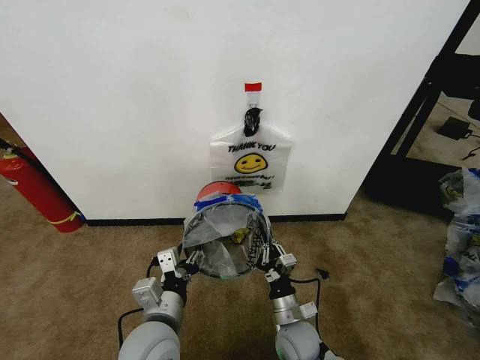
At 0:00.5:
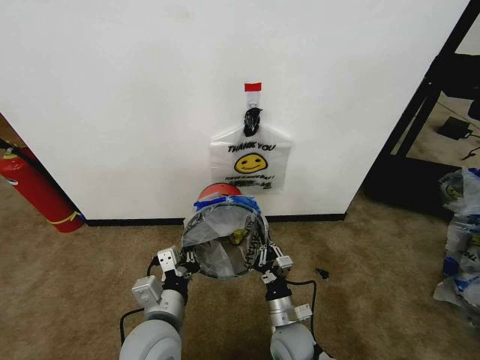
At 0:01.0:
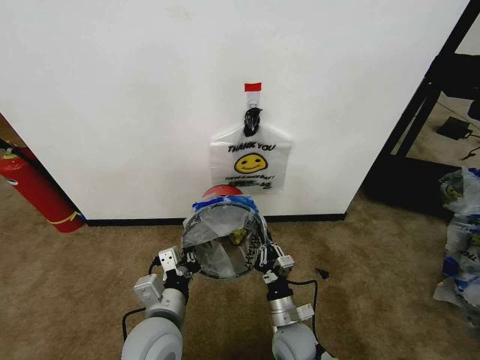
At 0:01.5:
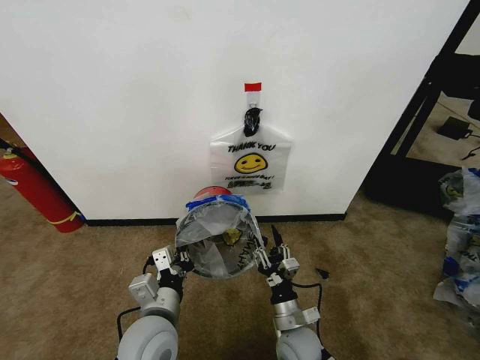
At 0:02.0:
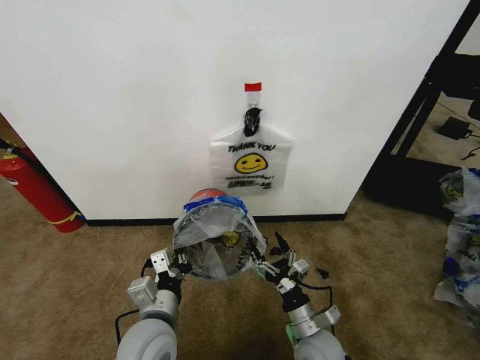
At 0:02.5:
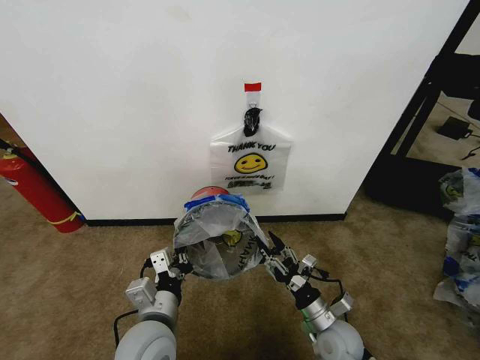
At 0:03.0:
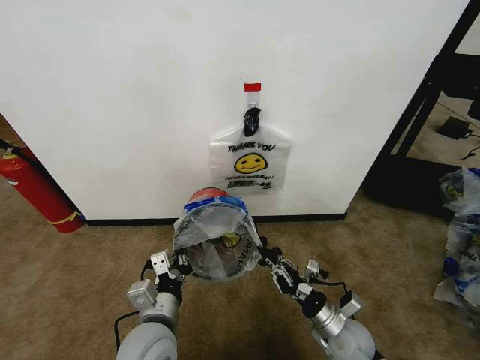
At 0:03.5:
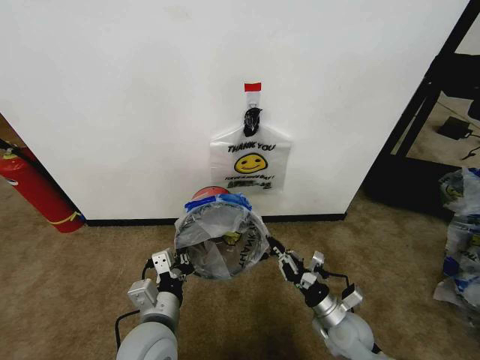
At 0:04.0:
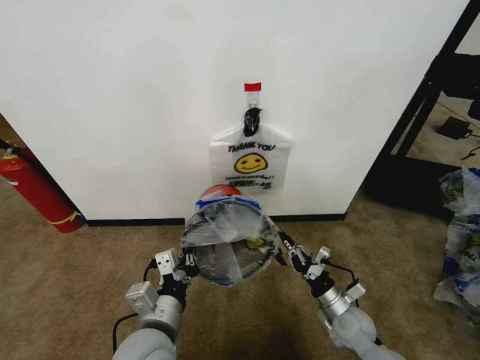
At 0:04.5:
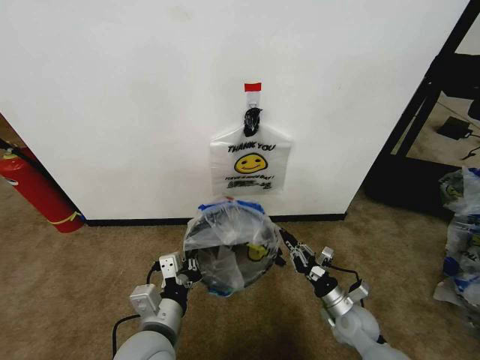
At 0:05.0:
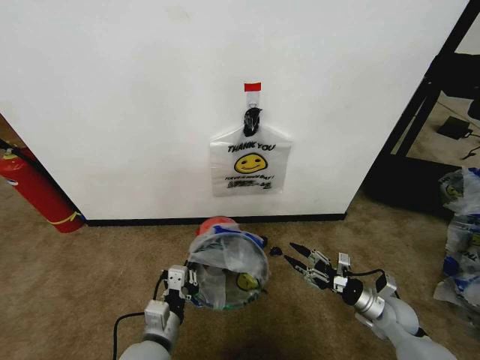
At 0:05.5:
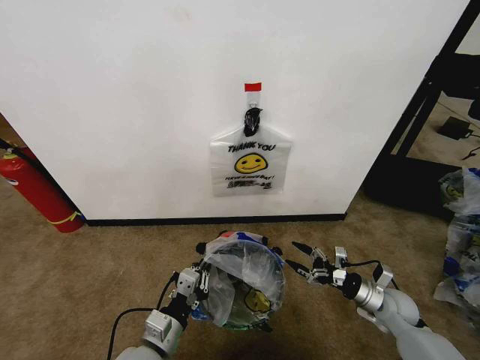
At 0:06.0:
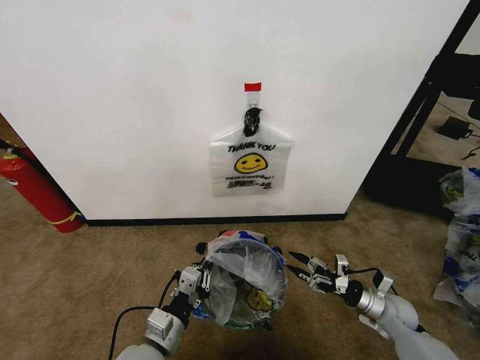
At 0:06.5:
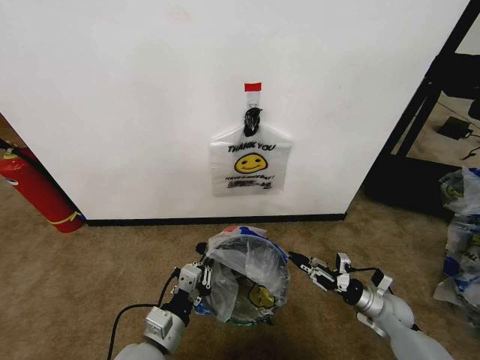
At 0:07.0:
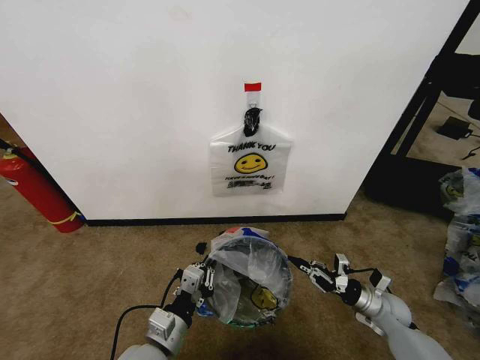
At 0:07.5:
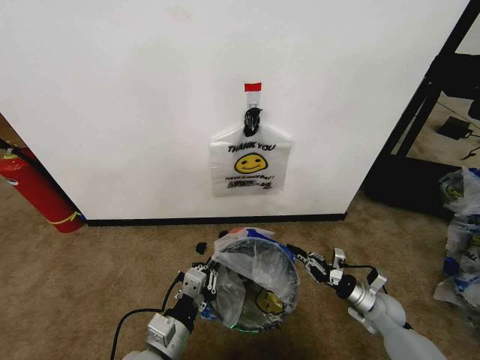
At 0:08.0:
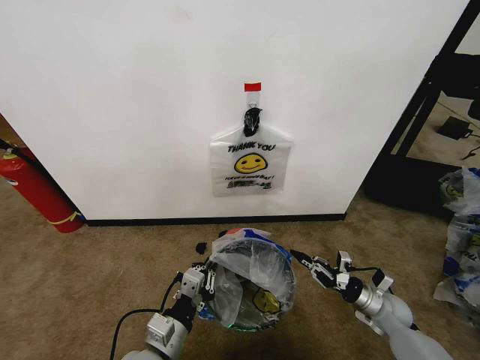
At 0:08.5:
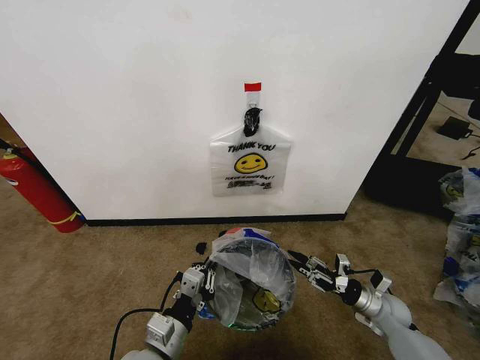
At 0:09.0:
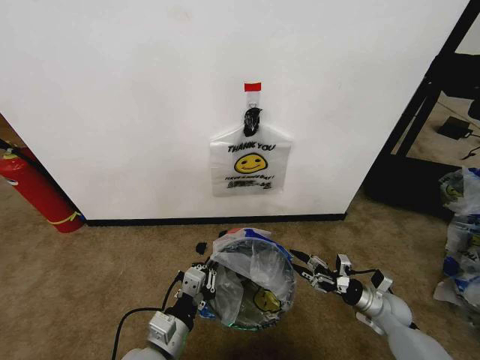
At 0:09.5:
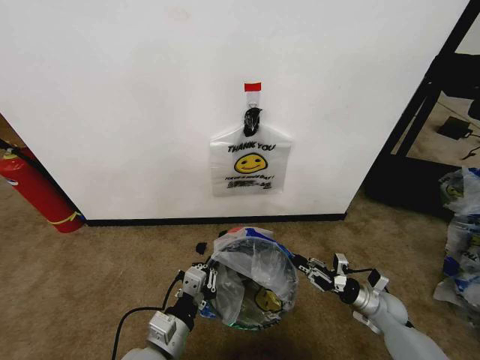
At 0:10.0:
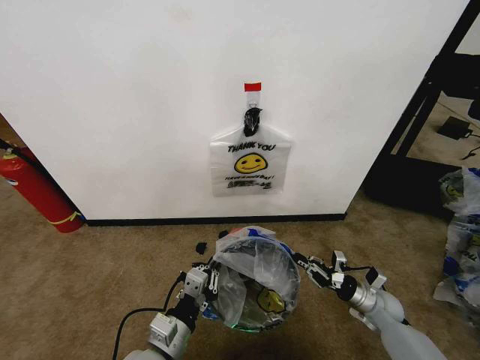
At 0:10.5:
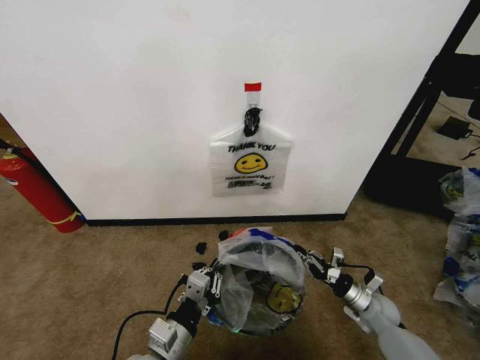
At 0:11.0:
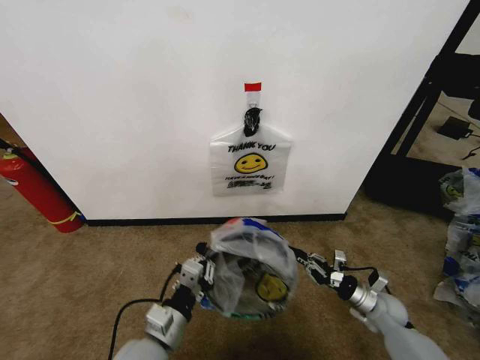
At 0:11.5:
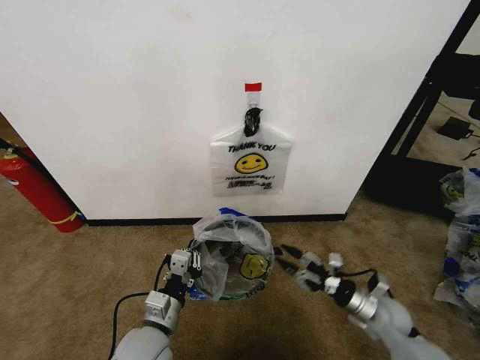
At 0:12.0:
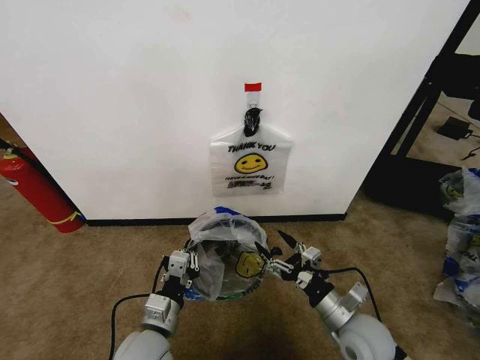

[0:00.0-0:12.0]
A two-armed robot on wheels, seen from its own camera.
Task of the whole recording: Pick up the garbage bag from the wall and place it over the trash bin.
0:00.0 to 0:02.0: The right gripper shifts by approximately 5 cm, and opens up. Meanwhile the left gripper closes its fingers.
0:02.0 to 0:04.0: The right gripper shifts some 10 cm to the right and forward, and closes its fingers.
0:04.0 to 0:06.0: The right gripper heads to the right, covering some 10 cm, and opens its fingers, while the left gripper heads downward, covering roughly 10 cm.
0:06.0 to 0:08.0: The right gripper closes its fingers.
0:08.0 to 0:10.0: The right gripper opens, then closes once more.
0:10.0 to 0:12.0: The right gripper travels to the left, upward and backward by some 20 cm, and opens its fingers.

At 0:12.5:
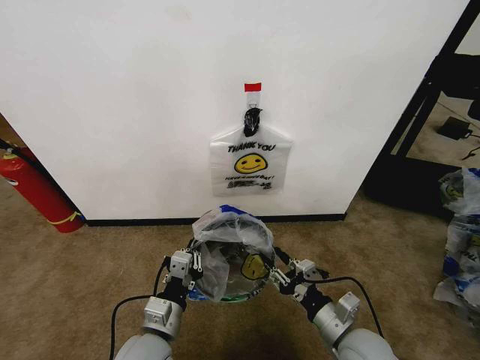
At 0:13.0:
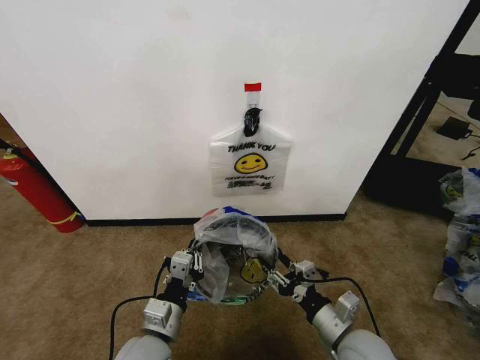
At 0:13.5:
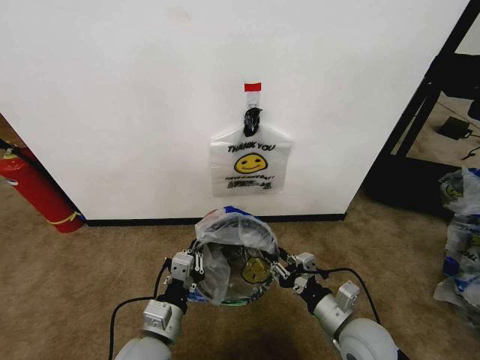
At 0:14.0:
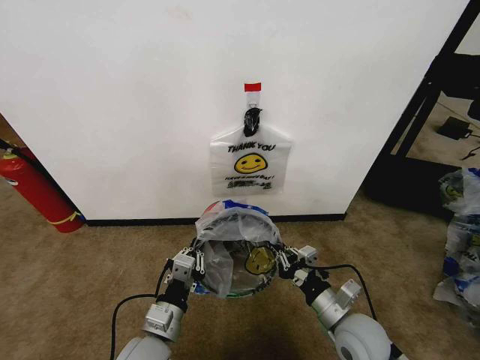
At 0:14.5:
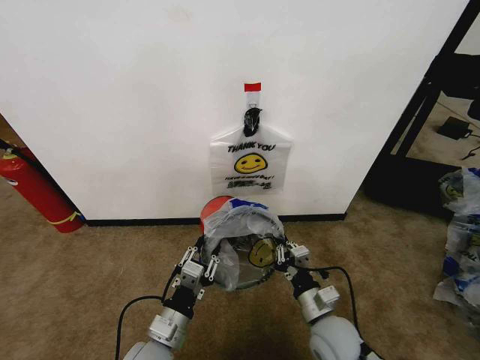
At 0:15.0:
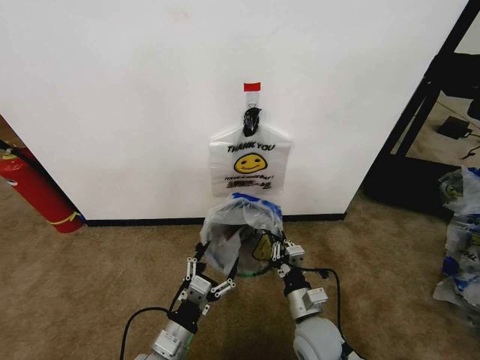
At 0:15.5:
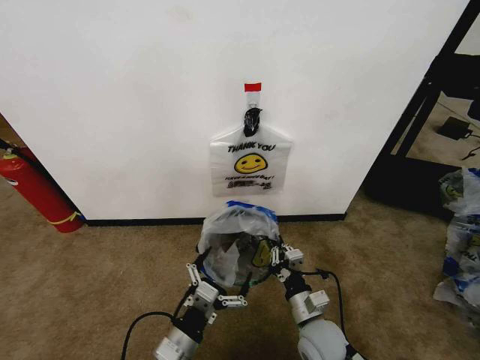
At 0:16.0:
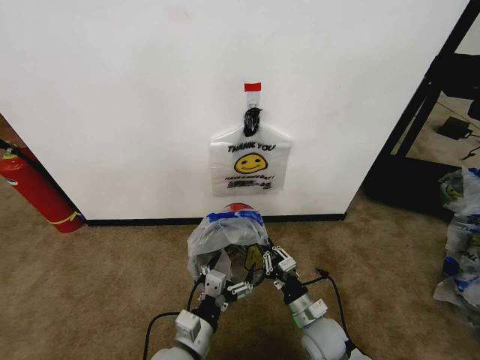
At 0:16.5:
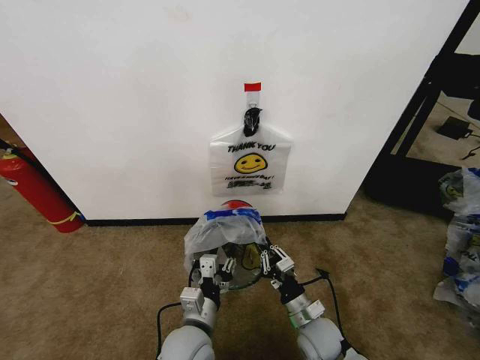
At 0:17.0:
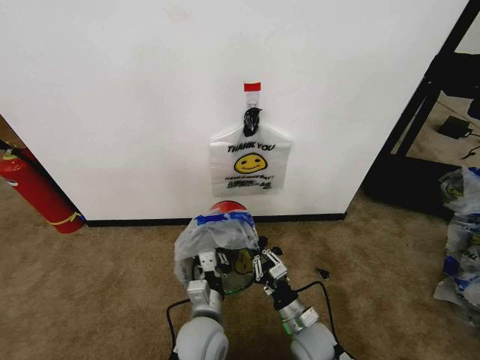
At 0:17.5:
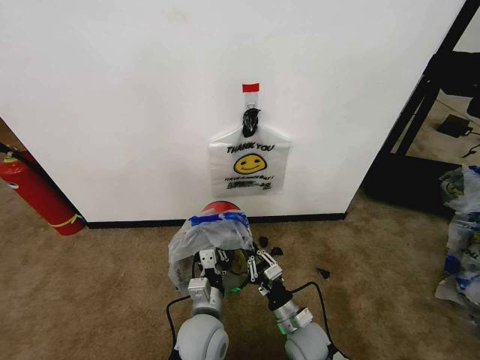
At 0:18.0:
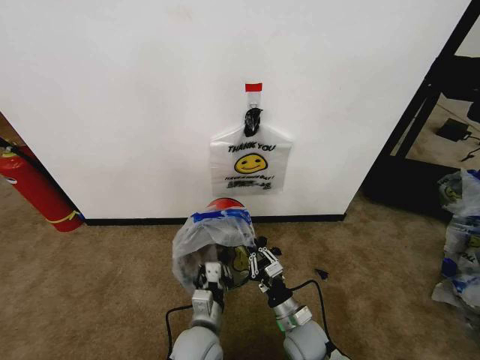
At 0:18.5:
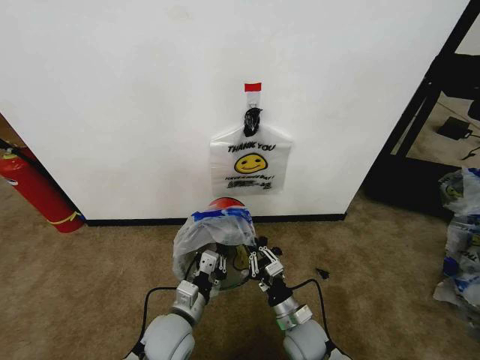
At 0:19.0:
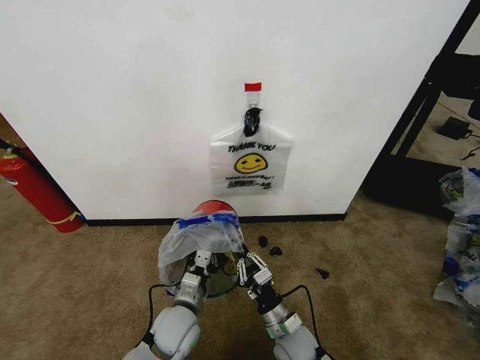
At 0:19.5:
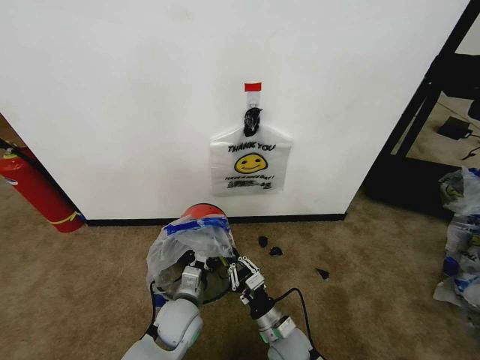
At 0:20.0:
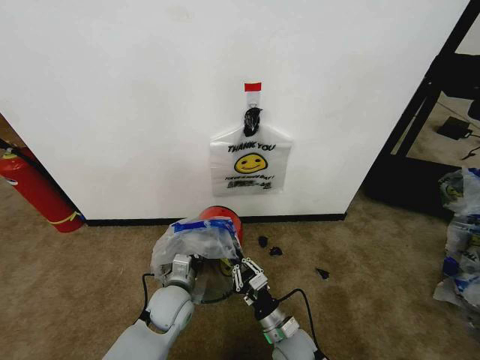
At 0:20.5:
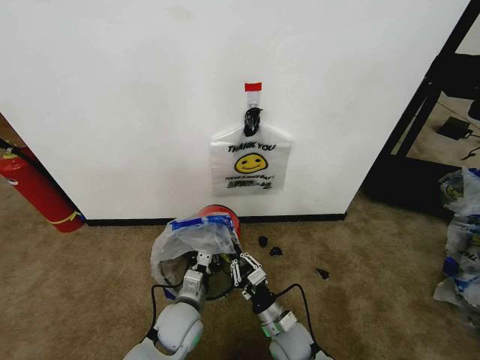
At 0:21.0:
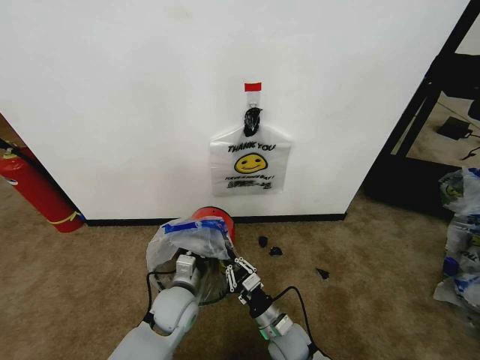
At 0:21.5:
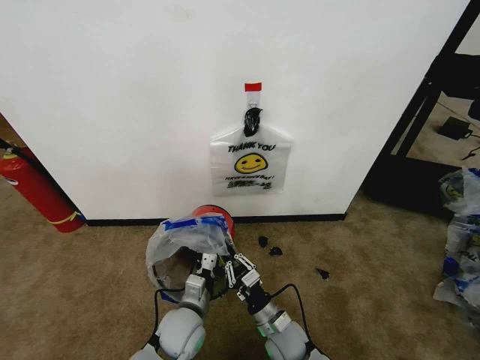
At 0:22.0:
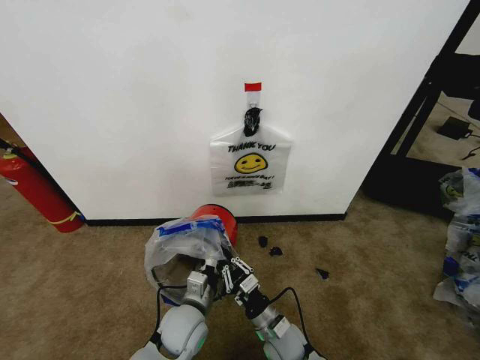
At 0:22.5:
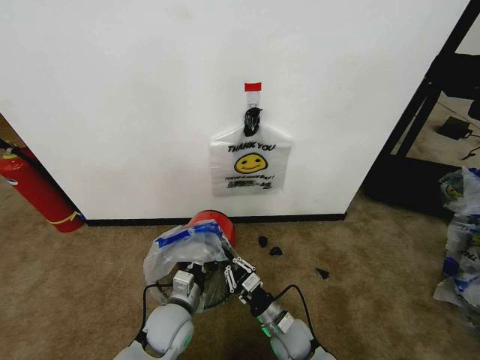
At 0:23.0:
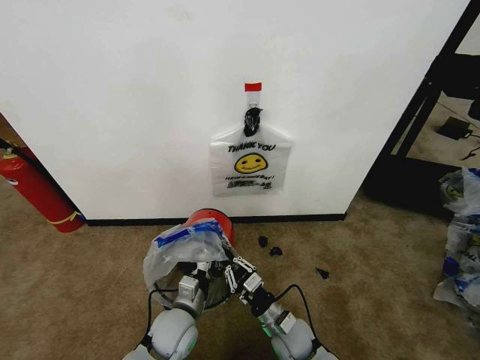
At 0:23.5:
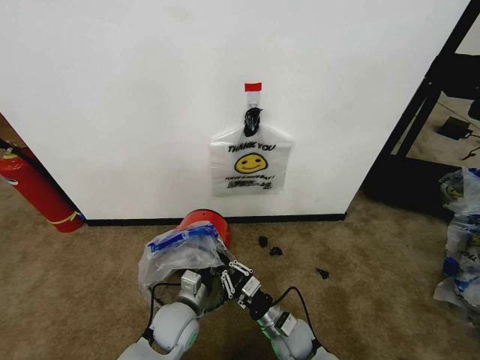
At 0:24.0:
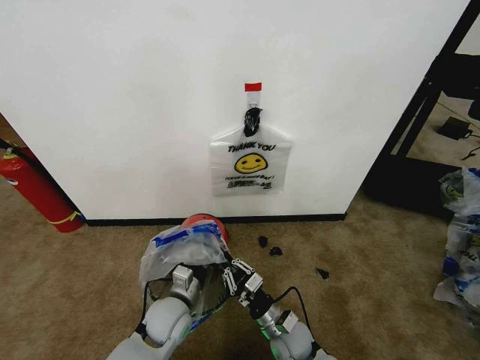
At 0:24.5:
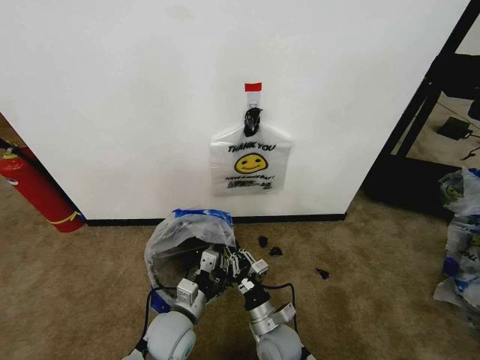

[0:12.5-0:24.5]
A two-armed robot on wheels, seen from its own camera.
Task of the whole recording: Pick up the garbage bag from the wall and place it over the trash bin.
0:12.5 to 0:14.5: The right gripper changes place by about 5 cm, and closes.
0:14.5 to 0:16.5: The right gripper heads downward, covering some 5 cm. Meanwhile the left gripper shifts about 5 cm to the right, and opens, then closes again.
0:16.5 to 0:18.5: The left gripper ends up roughly 5 cm from where it was, and closes.
0:20.5 to 0:22.5: The grippers stay close to where they were, moving slightly.

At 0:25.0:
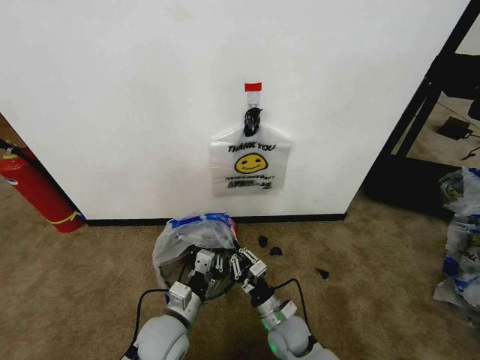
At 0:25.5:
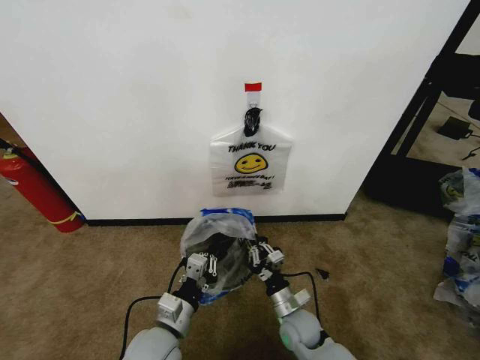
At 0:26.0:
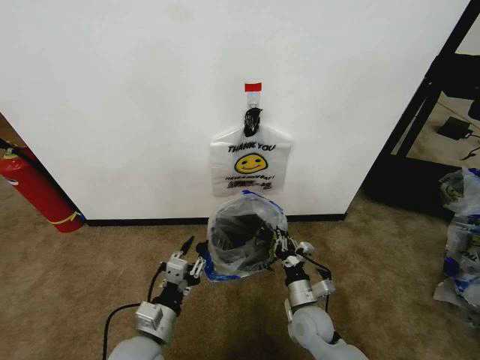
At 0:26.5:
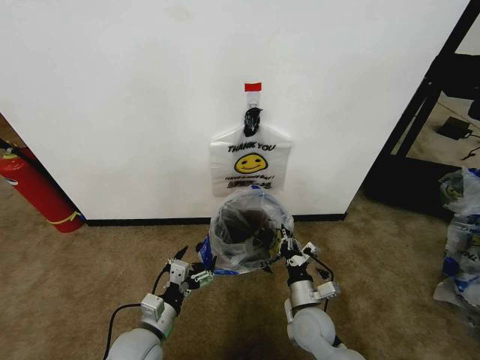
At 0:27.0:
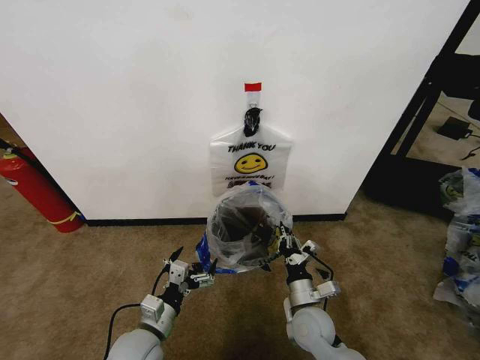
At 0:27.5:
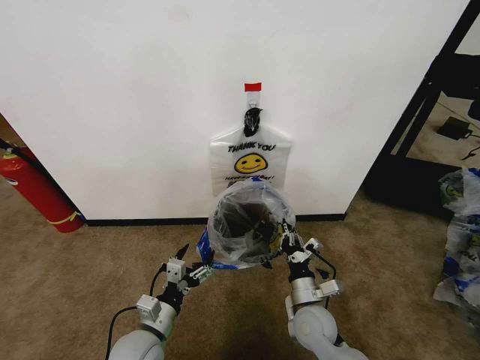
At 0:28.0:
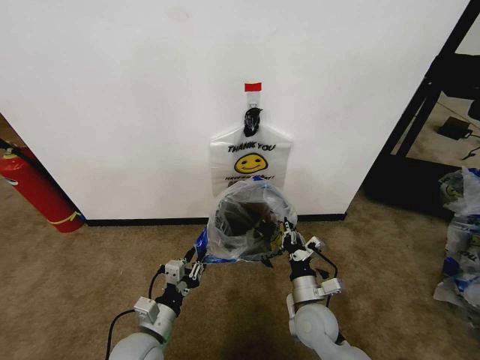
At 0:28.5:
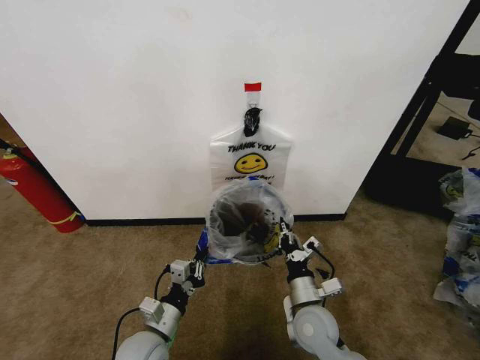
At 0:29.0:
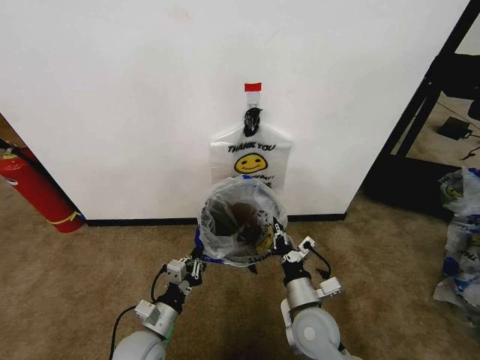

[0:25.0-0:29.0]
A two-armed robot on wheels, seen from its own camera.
Task of the whole recording: Pick up the garbage bag from the wall and place it over the trash bin.
0:25.0 to 0:27.0: The right gripper goes approximately 5 cm to the right. Meanwhile the left gripper goes approximately 5 cm to the left, and opens up.
0:27.0 to 0:29.0: The left gripper closes, while the right gripper is displaced upward by roughly 5 cm.
